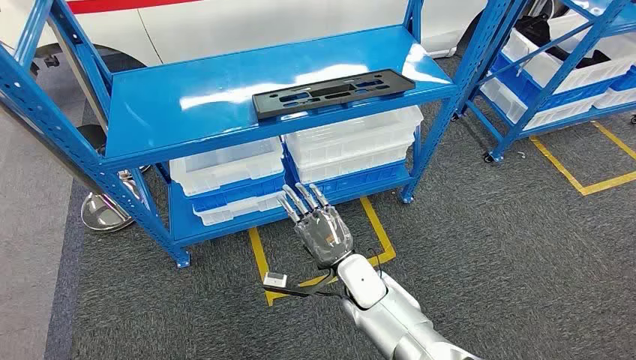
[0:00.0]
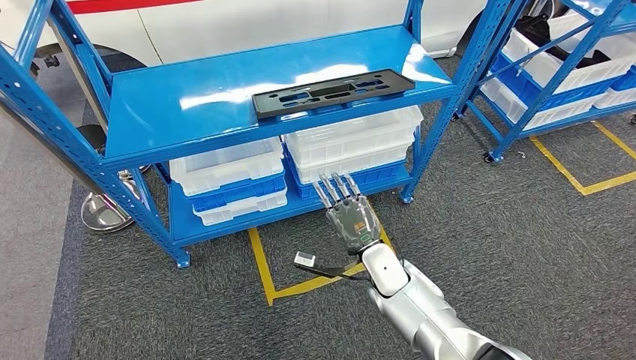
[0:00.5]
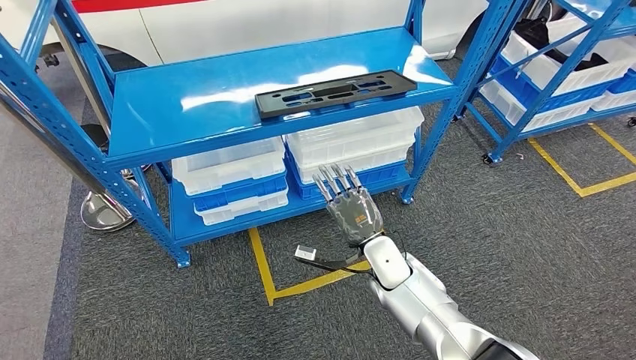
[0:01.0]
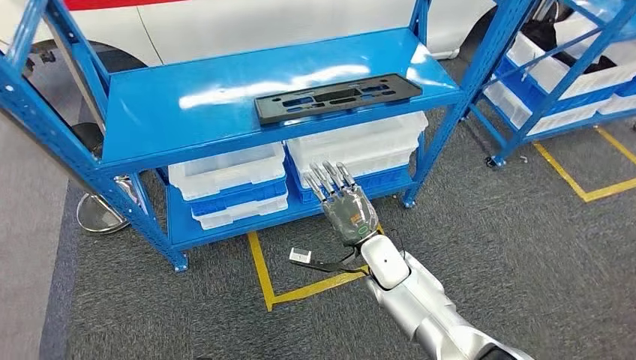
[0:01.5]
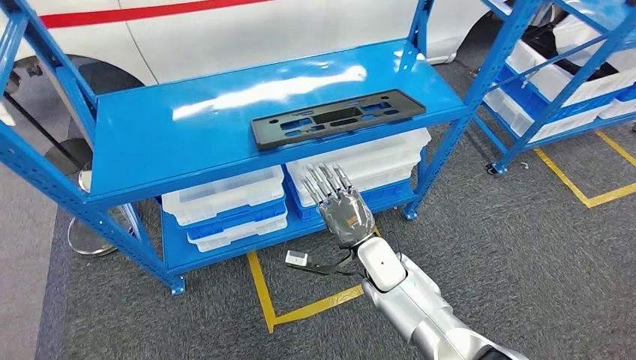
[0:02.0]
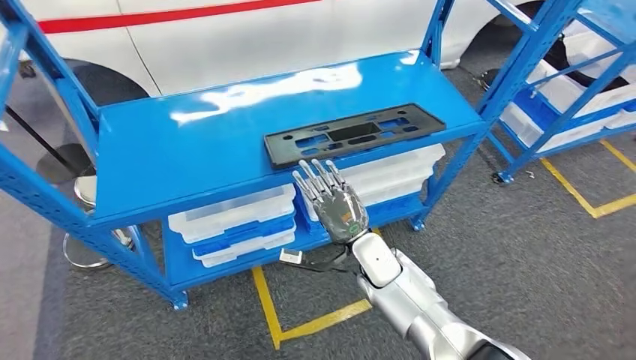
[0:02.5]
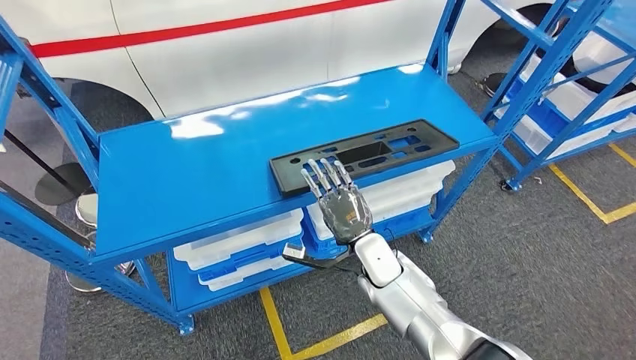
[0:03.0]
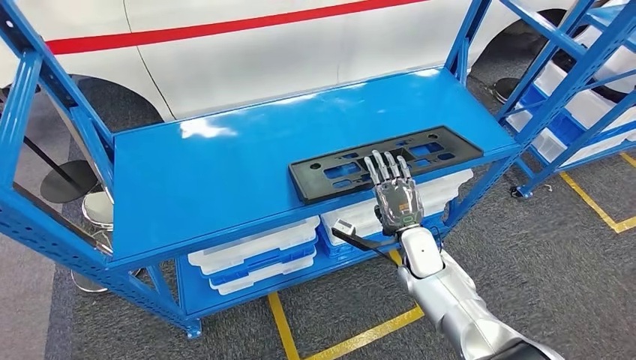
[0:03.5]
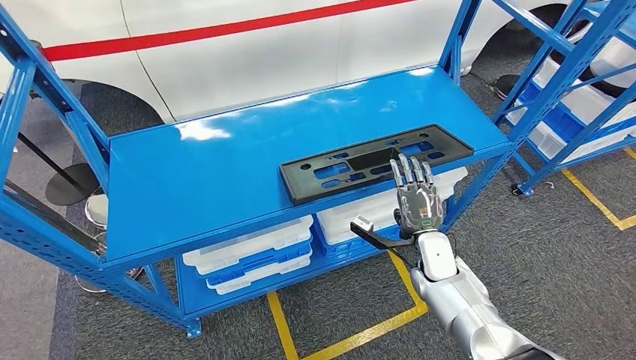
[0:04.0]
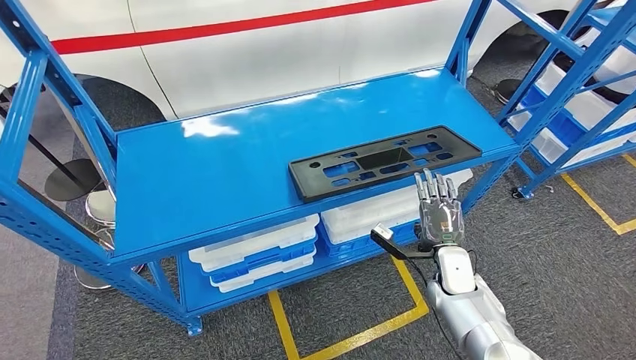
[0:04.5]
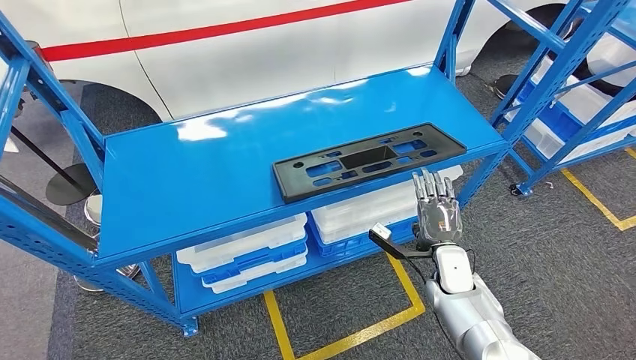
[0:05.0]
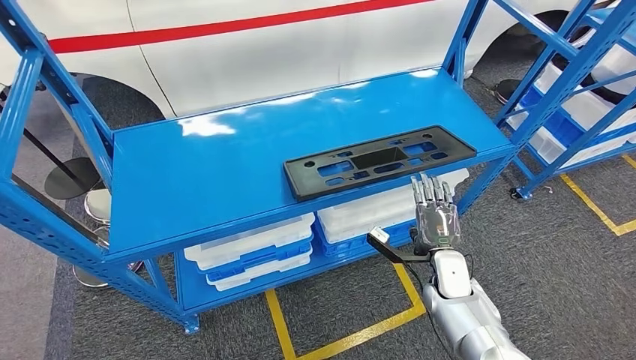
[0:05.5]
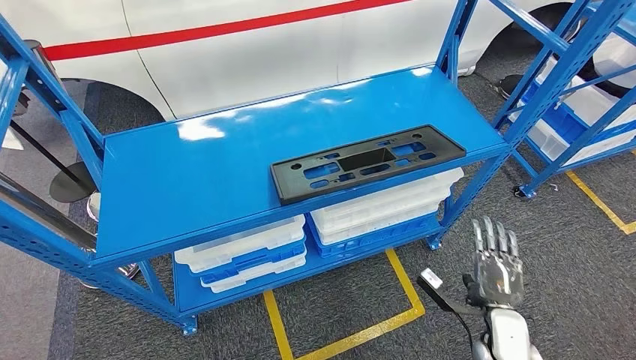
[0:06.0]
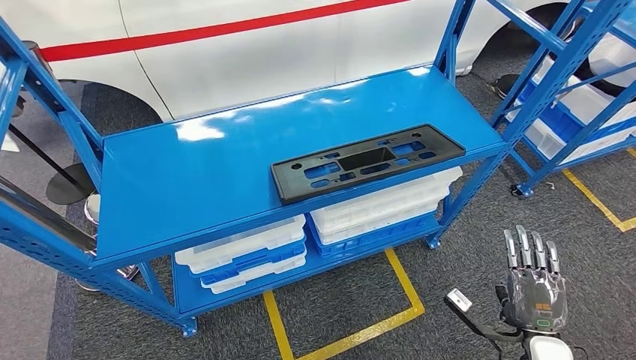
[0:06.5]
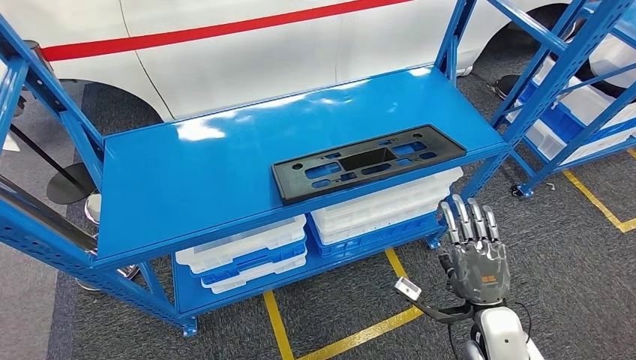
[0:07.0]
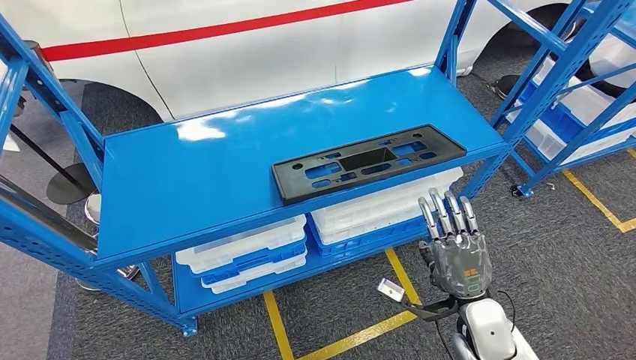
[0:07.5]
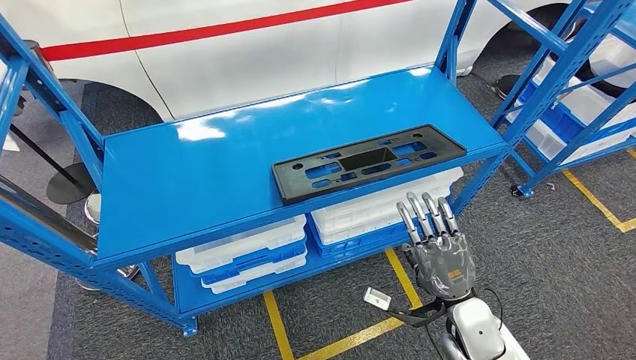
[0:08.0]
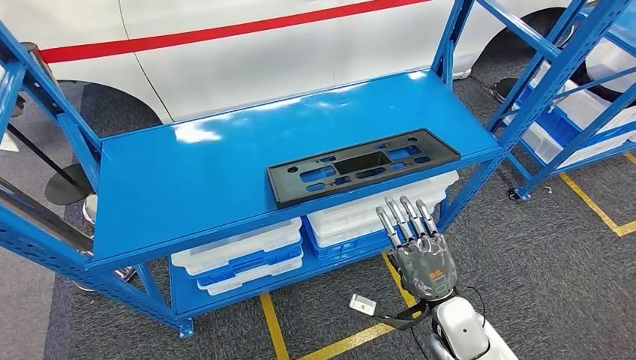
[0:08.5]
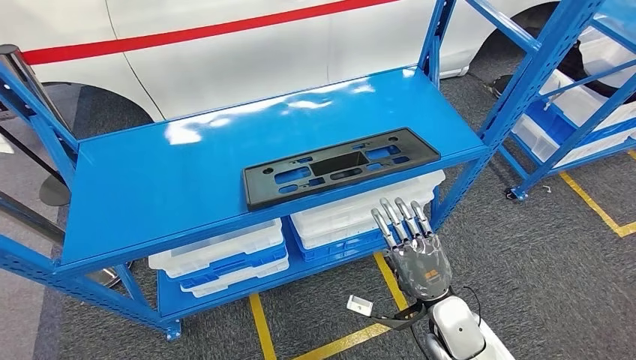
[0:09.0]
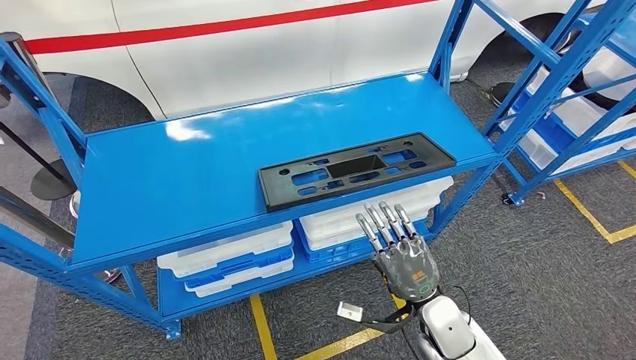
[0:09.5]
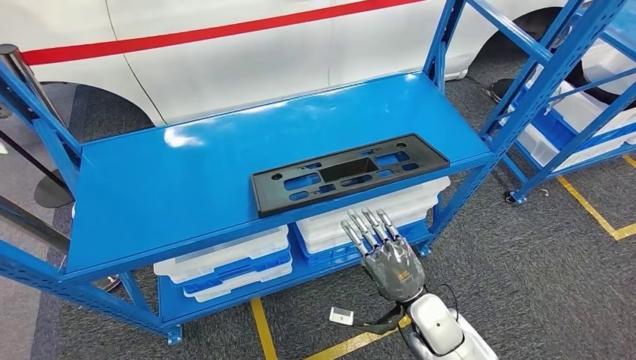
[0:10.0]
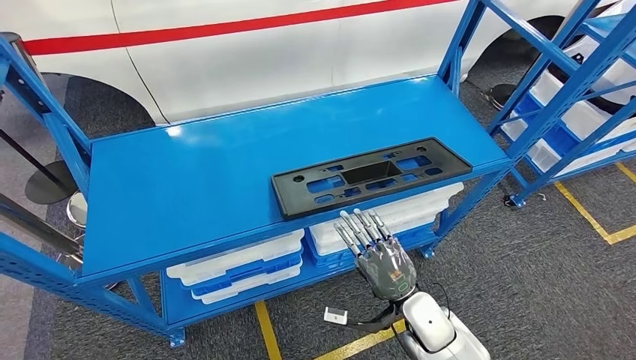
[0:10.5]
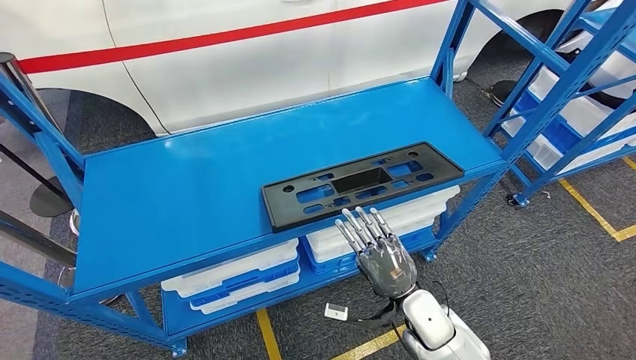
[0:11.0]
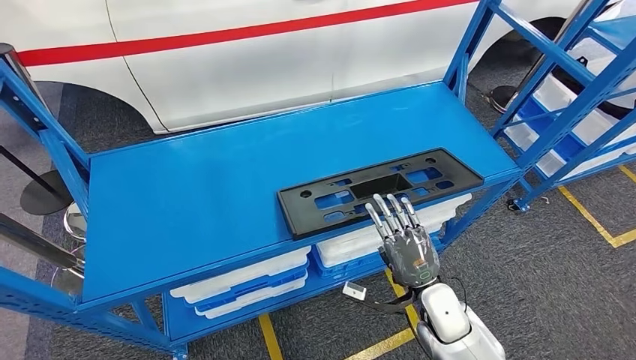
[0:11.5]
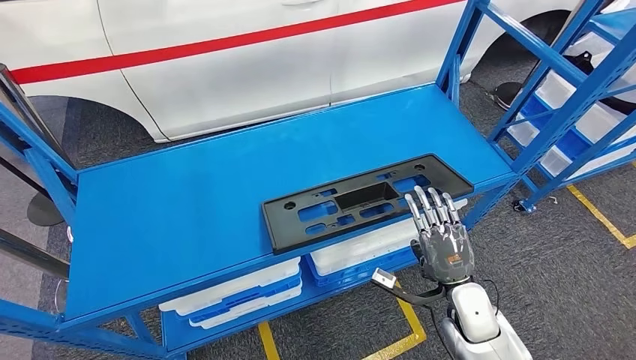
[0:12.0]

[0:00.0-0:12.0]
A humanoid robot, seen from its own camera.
0:04.0 to 0:06.0: The right hand heads backward, to the right and downward, covering about 20 cm.
0:06.0 to 0:08.0: The right hand travels to the left and upward by some 10 cm.

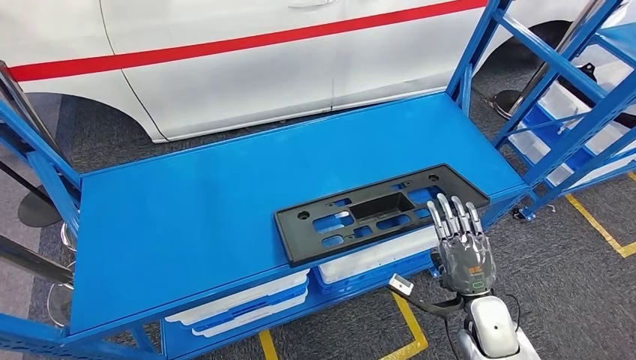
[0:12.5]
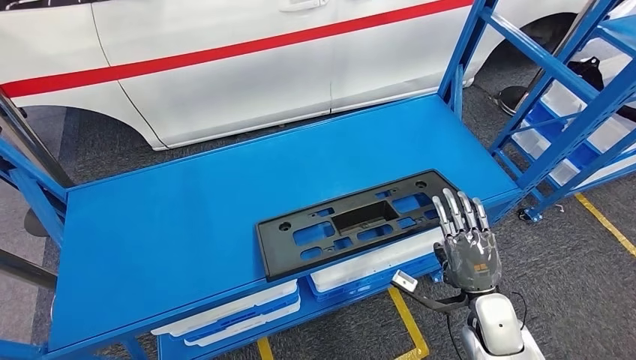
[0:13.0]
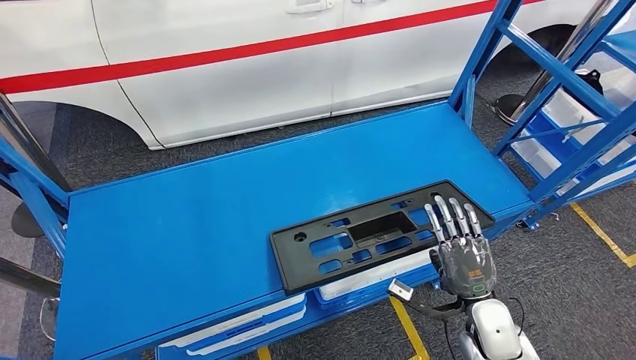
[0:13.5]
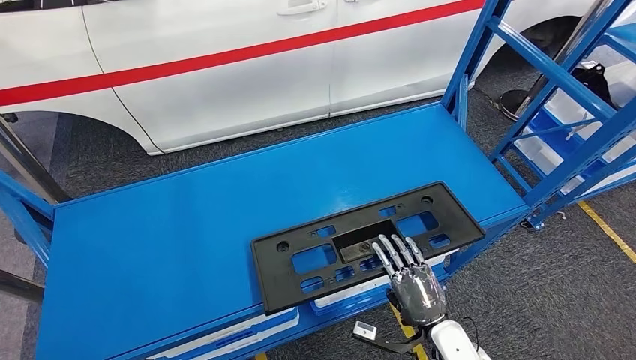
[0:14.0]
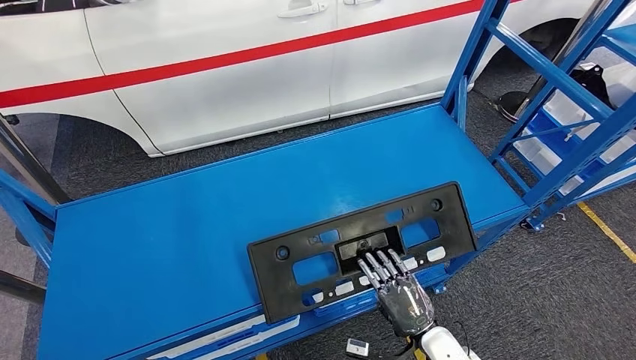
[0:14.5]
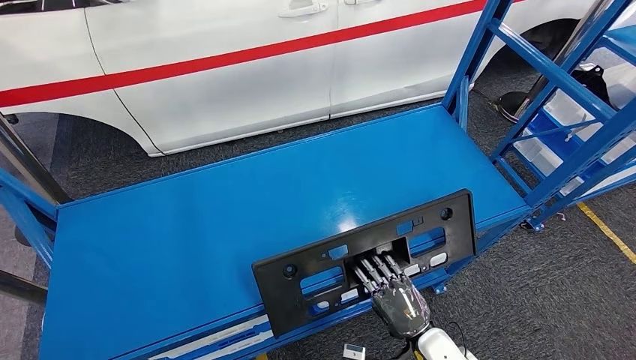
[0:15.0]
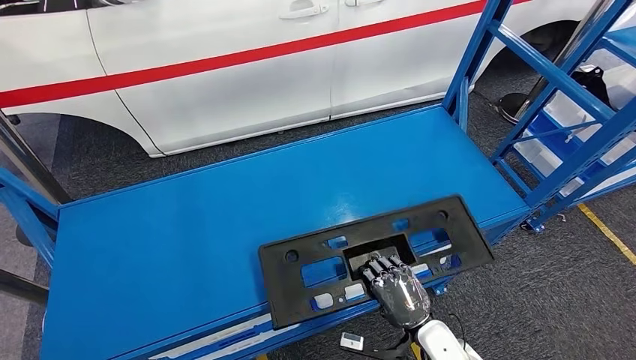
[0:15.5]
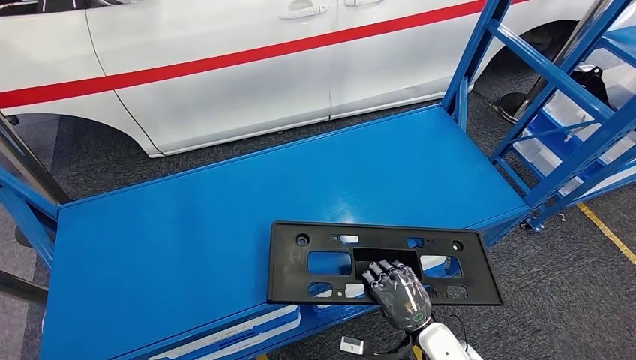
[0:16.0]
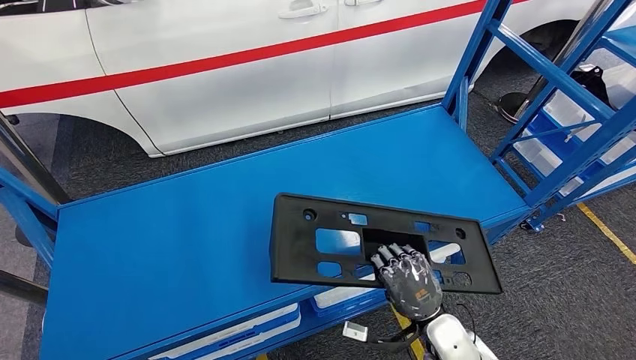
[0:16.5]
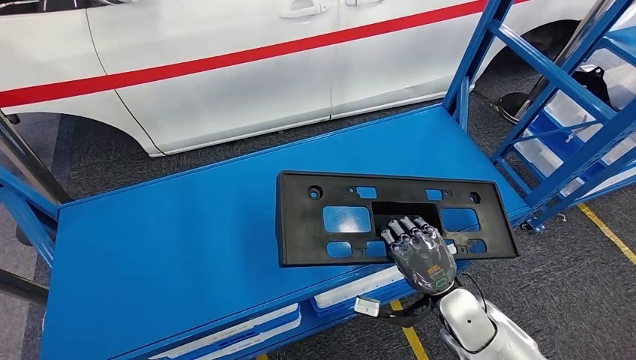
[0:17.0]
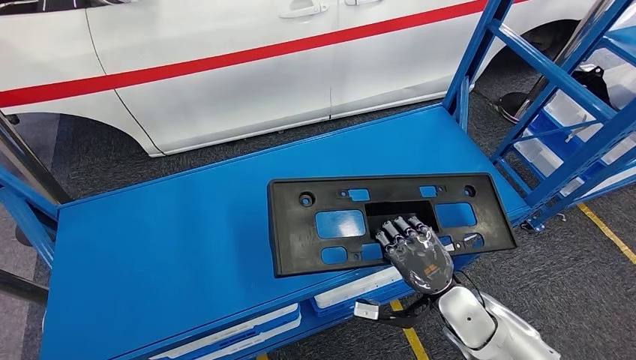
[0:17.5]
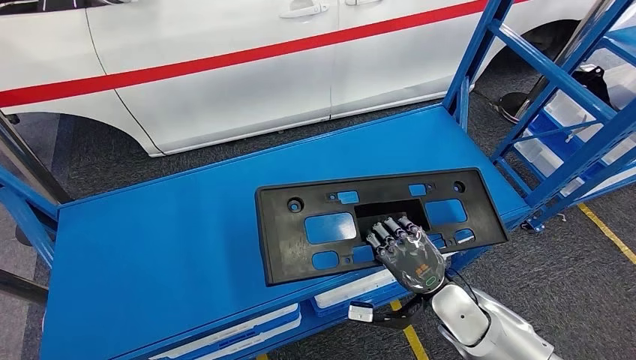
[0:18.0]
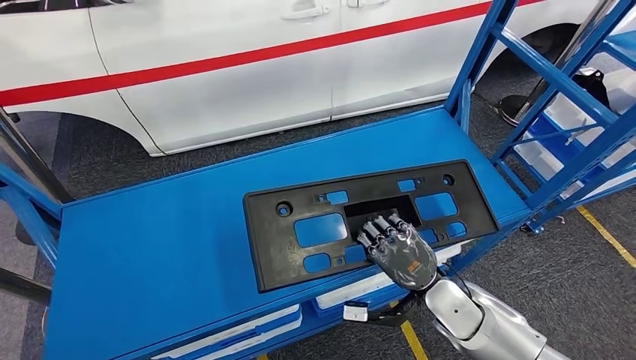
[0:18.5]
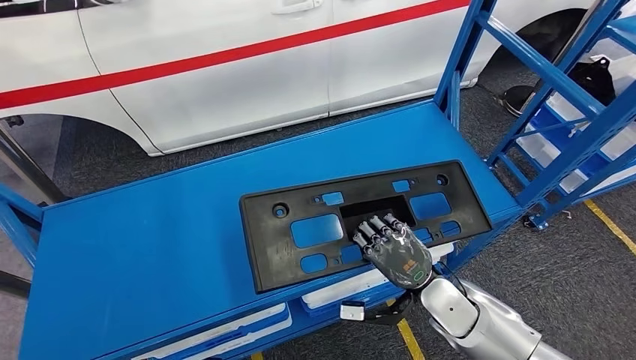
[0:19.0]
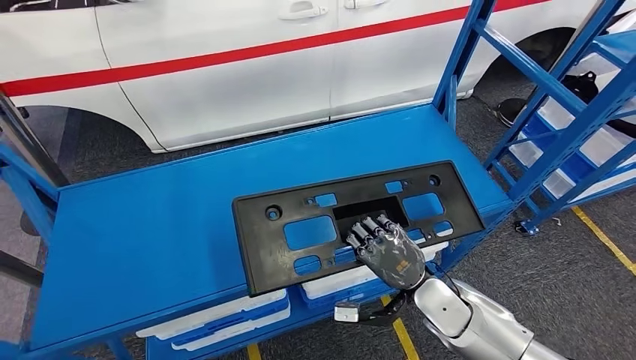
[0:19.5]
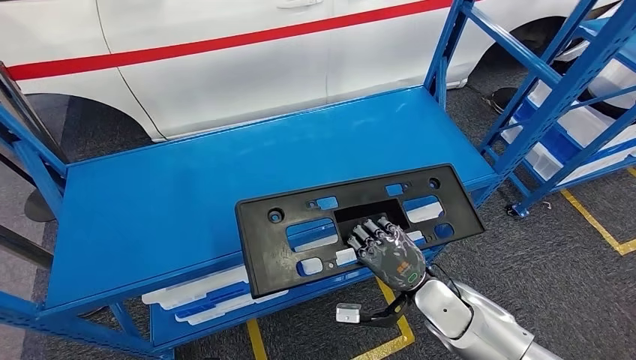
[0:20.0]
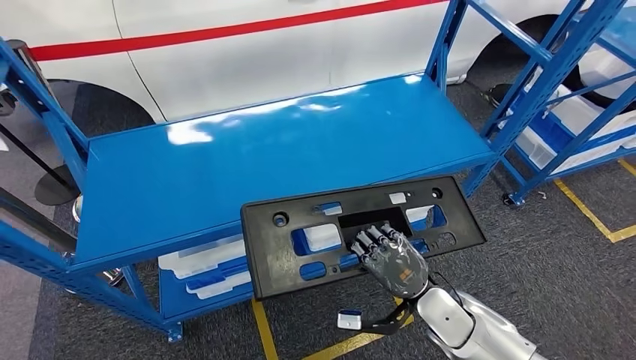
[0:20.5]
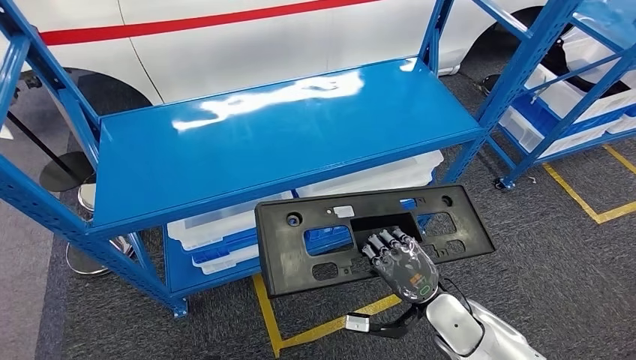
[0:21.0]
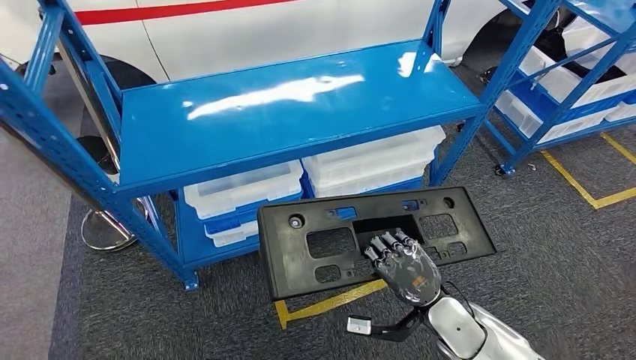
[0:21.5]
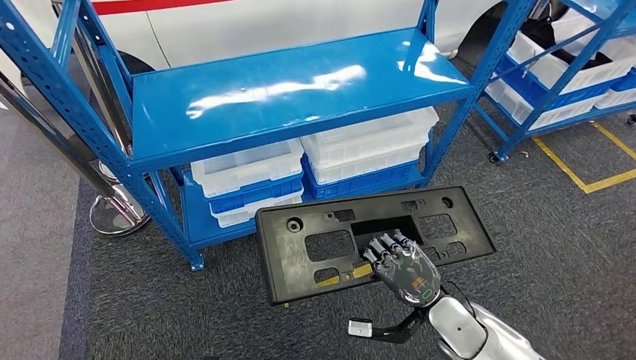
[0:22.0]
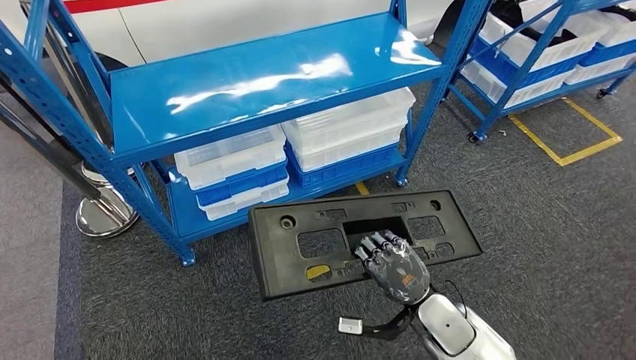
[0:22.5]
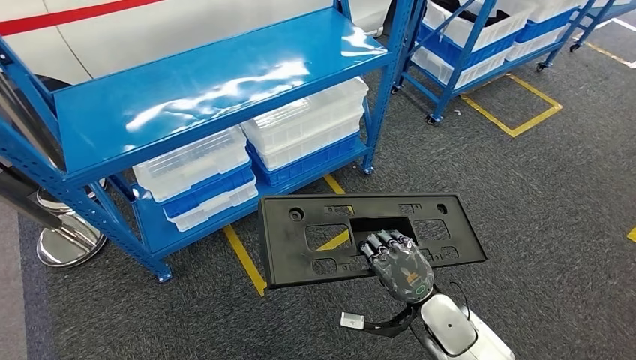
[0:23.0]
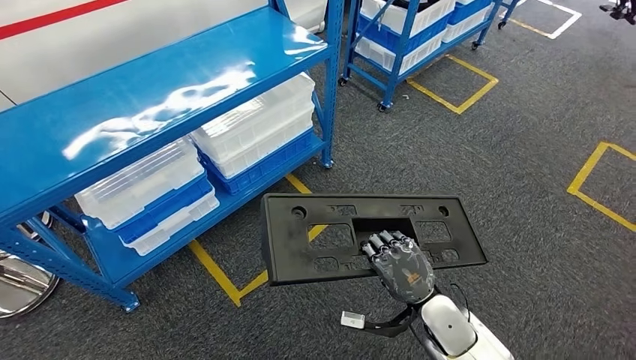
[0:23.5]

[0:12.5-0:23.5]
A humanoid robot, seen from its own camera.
Step, 0:12.5 to 0:19.5: Pick up the large material from the shelf.
0:14.5 to 0:16.0: There are only small adjustments of the hands.
0:16.0 to 0:18.0: The right hand shifts approximately 10 cm upward and forward.
